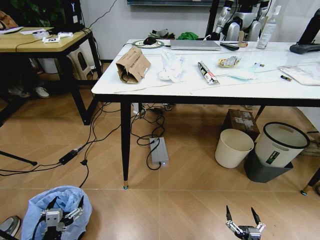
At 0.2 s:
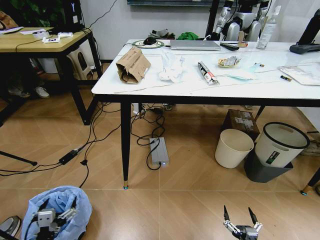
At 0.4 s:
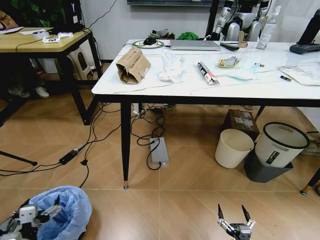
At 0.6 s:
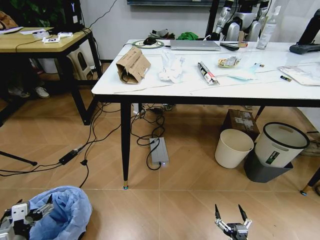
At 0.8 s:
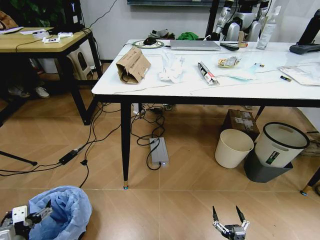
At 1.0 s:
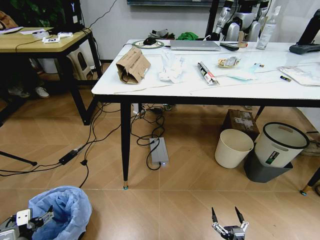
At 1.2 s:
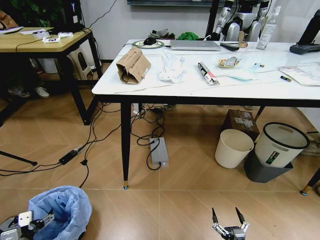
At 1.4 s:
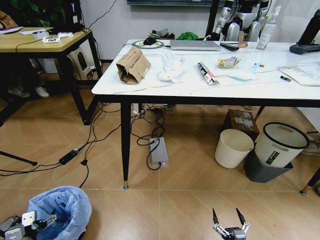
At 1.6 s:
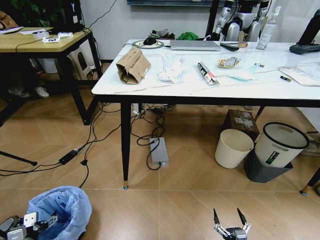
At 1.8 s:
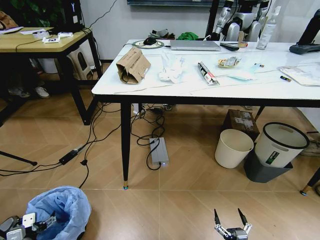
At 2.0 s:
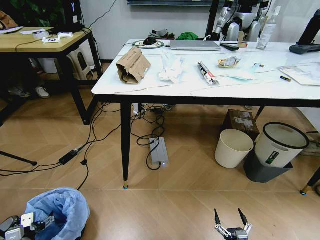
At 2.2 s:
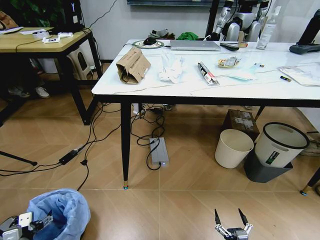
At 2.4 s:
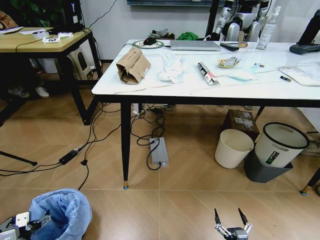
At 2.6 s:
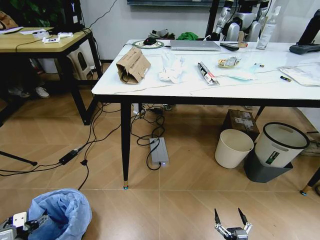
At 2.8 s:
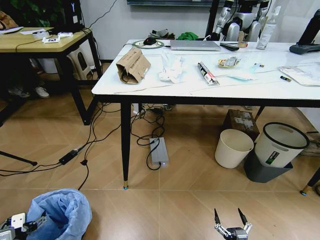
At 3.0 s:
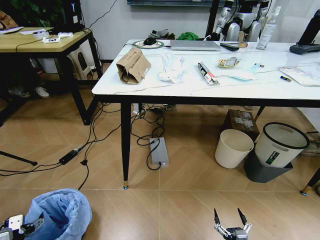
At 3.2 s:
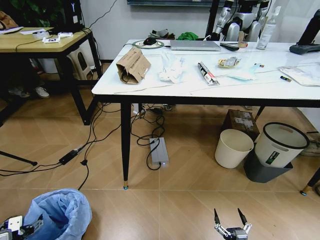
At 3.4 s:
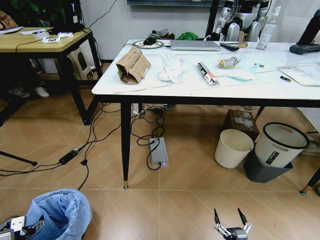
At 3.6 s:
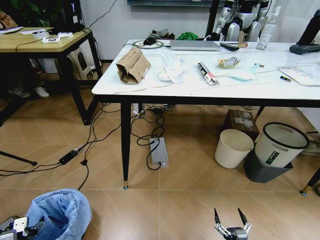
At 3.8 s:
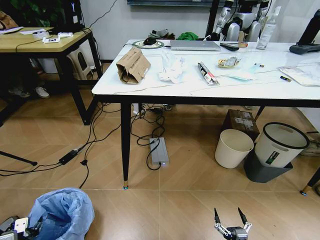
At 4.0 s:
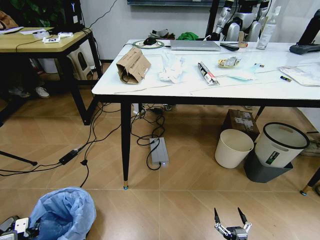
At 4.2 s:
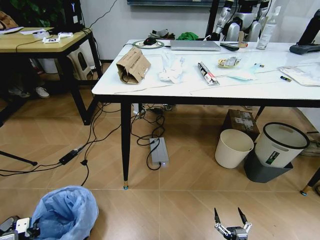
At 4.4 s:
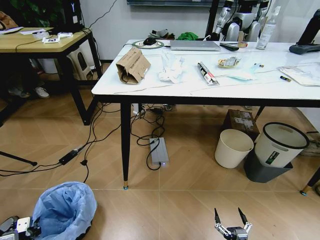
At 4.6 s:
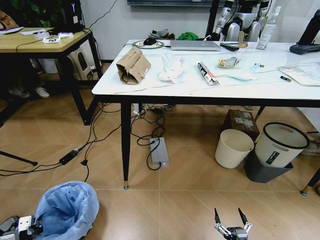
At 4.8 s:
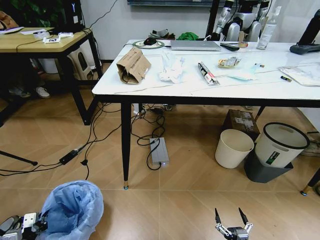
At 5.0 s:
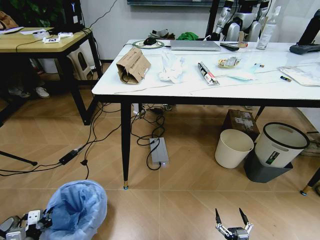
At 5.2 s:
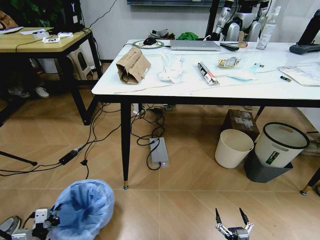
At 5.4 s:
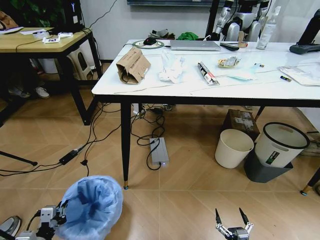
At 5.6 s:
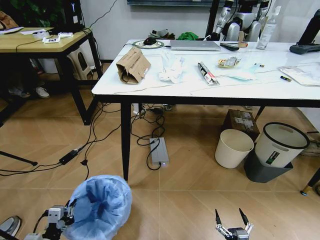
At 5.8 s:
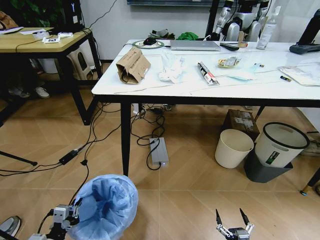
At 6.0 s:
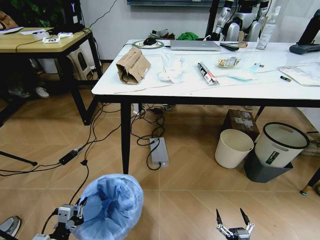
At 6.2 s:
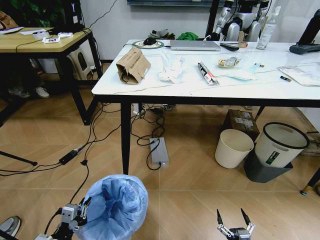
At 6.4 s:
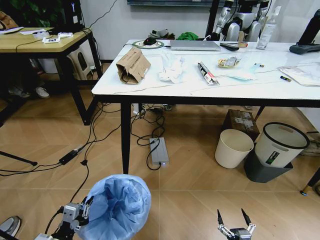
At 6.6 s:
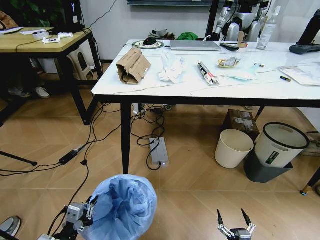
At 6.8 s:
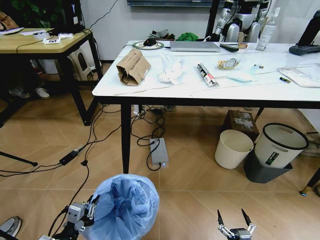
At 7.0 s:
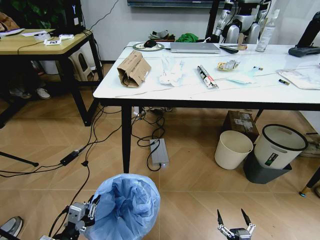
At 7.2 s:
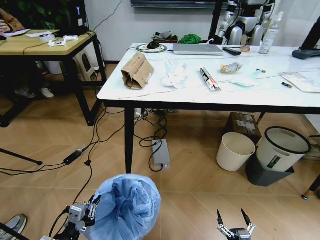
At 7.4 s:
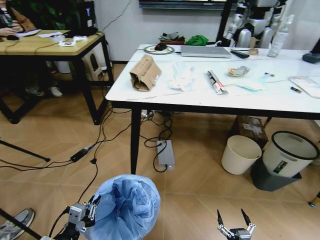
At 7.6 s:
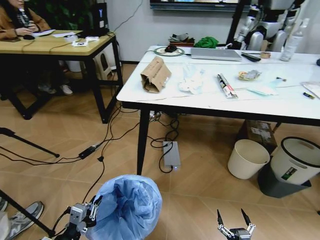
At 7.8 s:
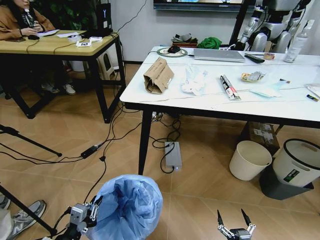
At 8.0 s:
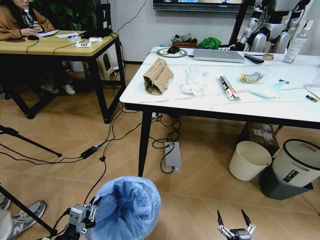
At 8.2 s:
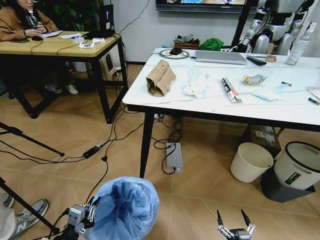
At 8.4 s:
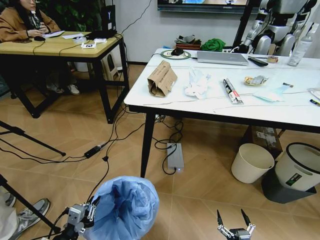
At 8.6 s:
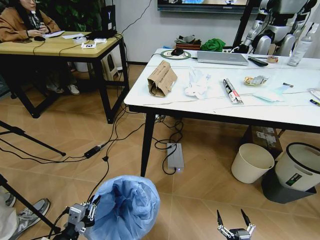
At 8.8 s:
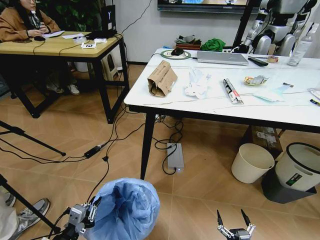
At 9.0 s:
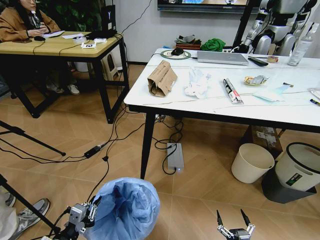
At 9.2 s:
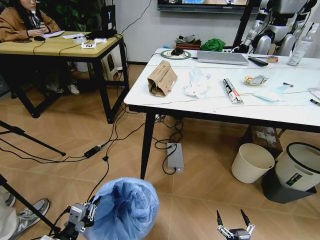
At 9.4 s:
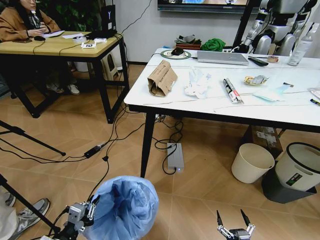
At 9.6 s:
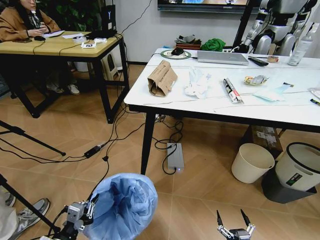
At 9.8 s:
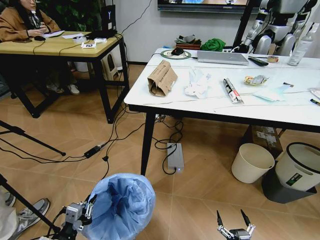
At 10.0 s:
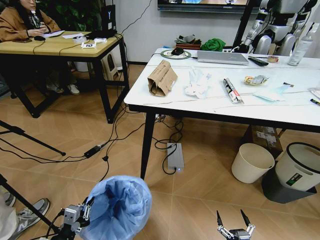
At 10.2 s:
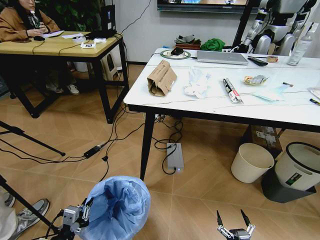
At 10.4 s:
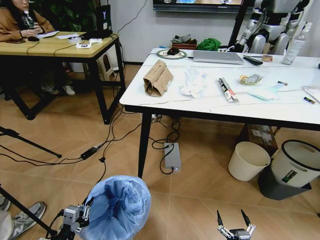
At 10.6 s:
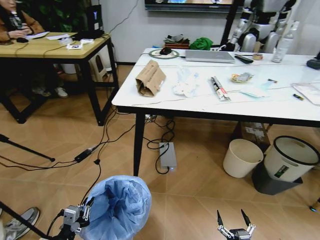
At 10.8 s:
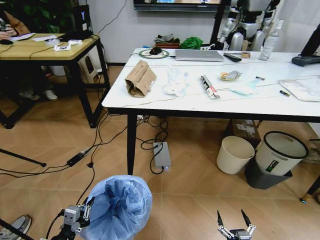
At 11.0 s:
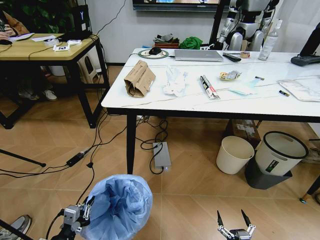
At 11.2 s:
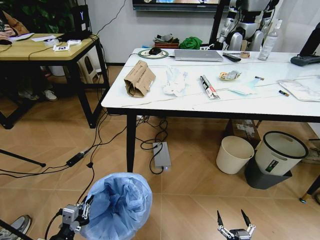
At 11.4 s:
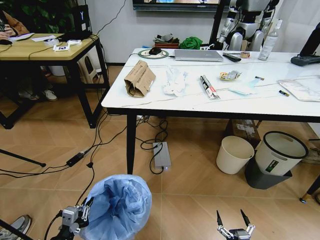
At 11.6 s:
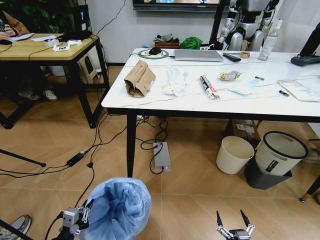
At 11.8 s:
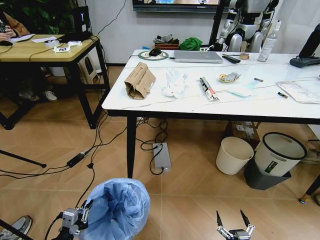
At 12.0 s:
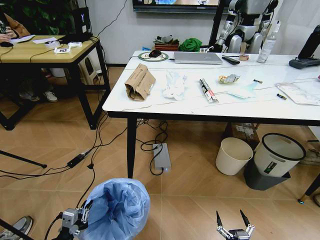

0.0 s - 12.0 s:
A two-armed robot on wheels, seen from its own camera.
Task of the whole recording: Pick up the trash bin and place the trash from the table into it.
0.0 s - 1.6 s: The left gripper heads to the left and downward, covering about 10 cm.
1.6 s - 3.0 s: The grippers make only small movements.
3.0 s - 4.4 s: The left gripper closes up.
4.4 s - 6.0 s: The left gripper goes some 15 cm to the right and upward.

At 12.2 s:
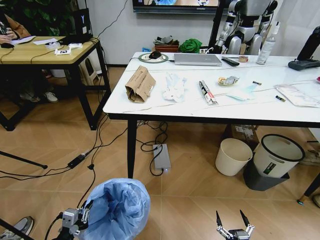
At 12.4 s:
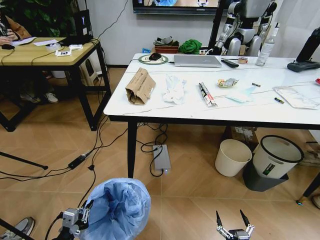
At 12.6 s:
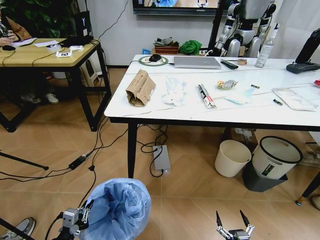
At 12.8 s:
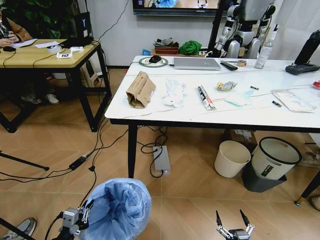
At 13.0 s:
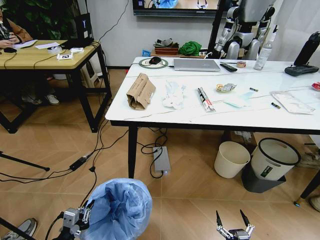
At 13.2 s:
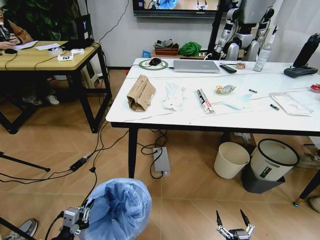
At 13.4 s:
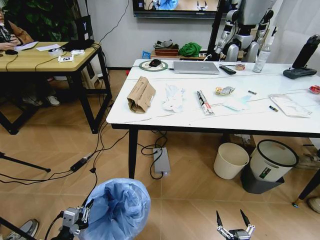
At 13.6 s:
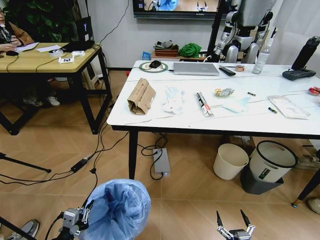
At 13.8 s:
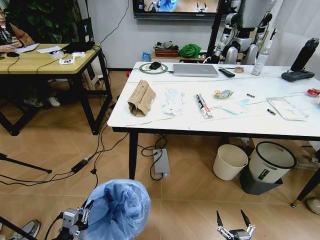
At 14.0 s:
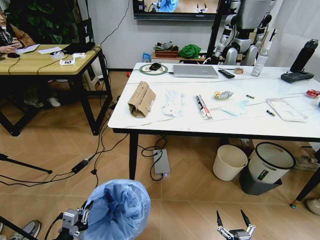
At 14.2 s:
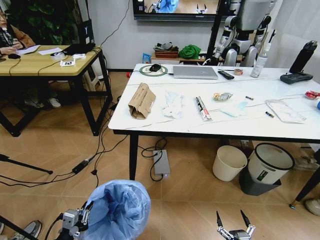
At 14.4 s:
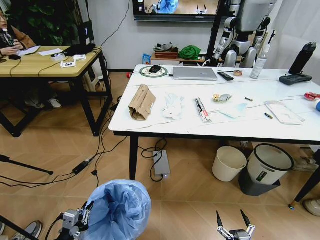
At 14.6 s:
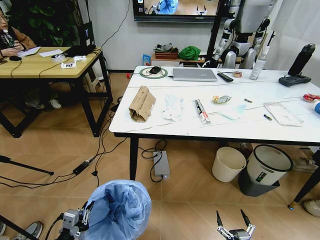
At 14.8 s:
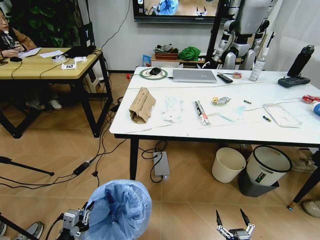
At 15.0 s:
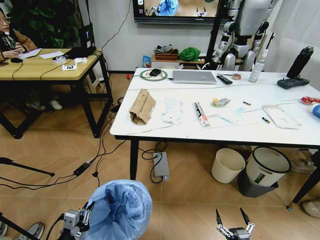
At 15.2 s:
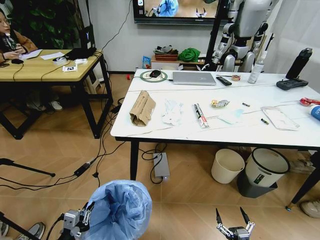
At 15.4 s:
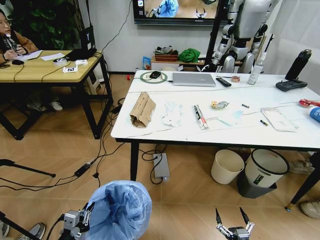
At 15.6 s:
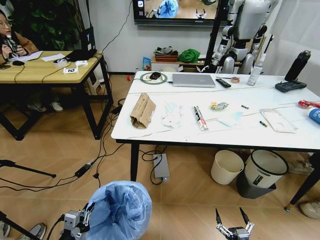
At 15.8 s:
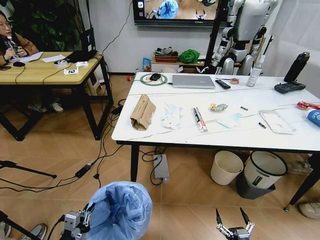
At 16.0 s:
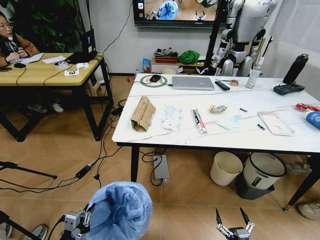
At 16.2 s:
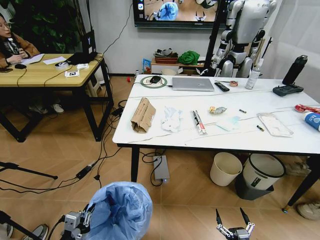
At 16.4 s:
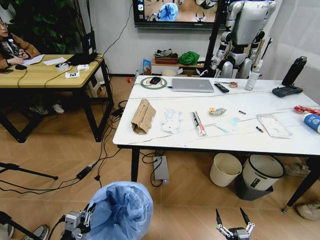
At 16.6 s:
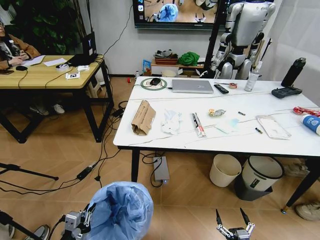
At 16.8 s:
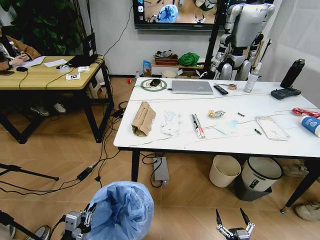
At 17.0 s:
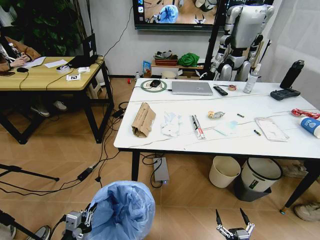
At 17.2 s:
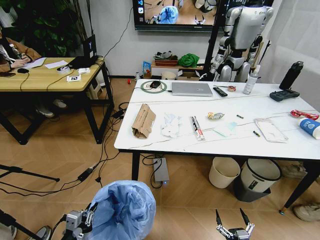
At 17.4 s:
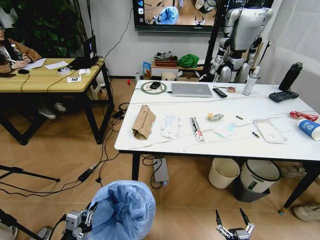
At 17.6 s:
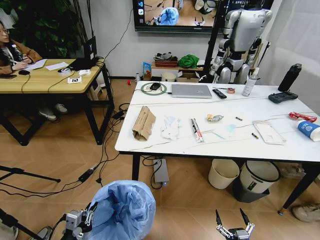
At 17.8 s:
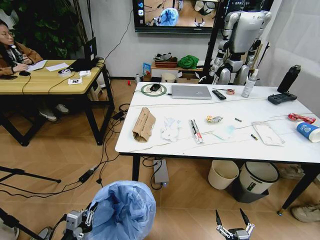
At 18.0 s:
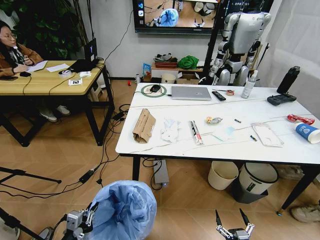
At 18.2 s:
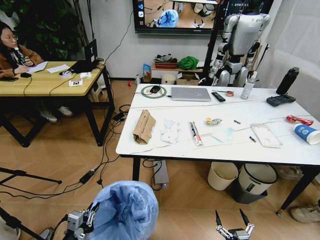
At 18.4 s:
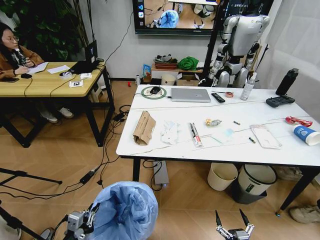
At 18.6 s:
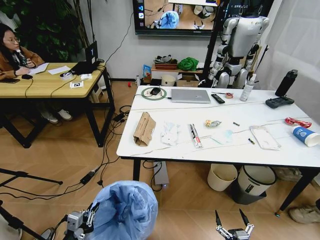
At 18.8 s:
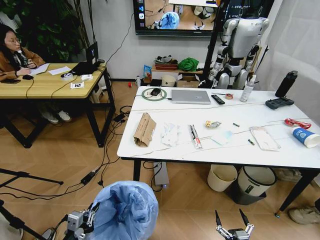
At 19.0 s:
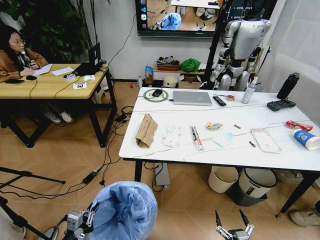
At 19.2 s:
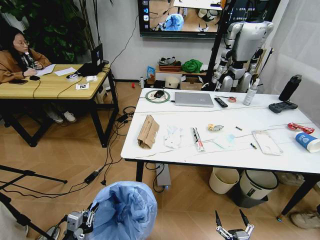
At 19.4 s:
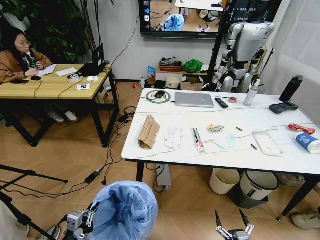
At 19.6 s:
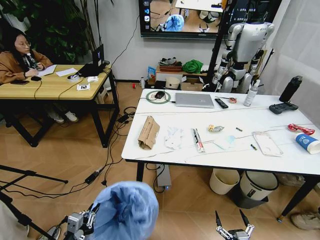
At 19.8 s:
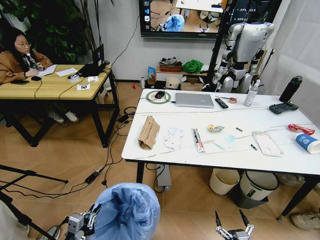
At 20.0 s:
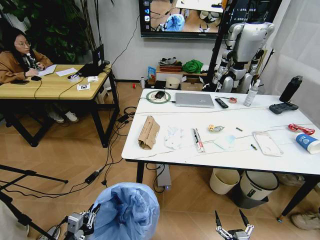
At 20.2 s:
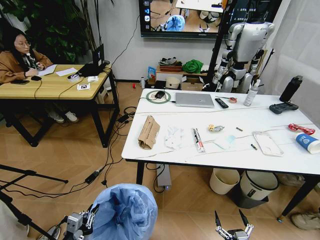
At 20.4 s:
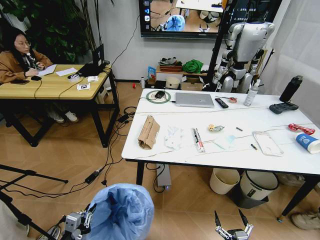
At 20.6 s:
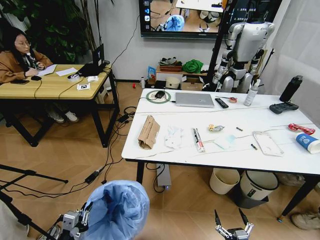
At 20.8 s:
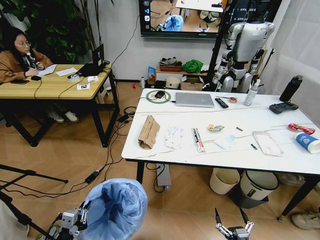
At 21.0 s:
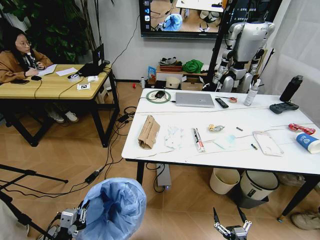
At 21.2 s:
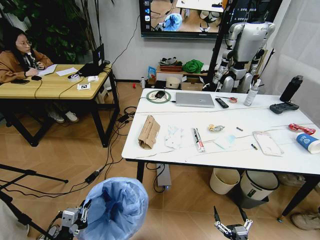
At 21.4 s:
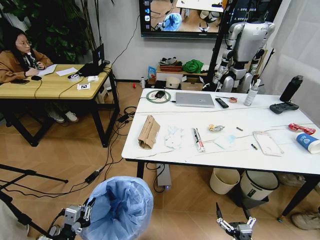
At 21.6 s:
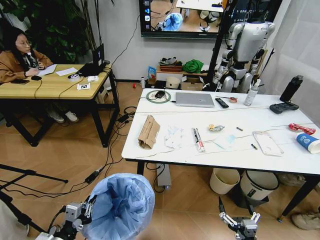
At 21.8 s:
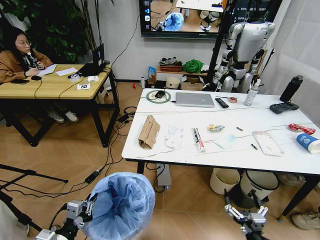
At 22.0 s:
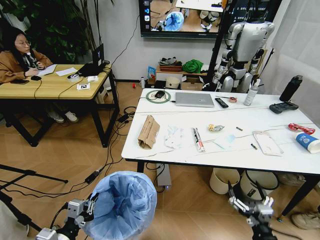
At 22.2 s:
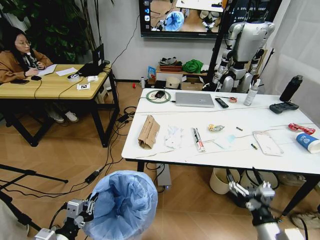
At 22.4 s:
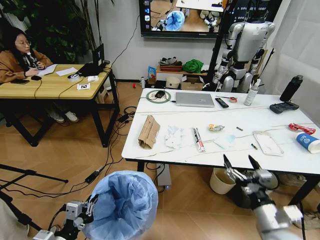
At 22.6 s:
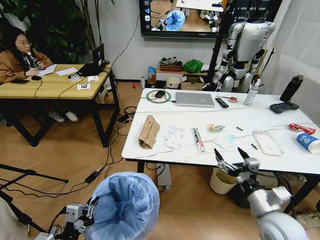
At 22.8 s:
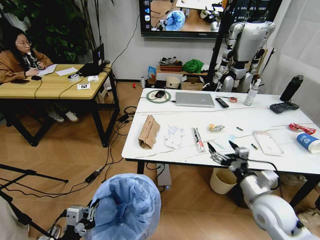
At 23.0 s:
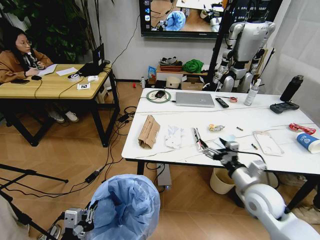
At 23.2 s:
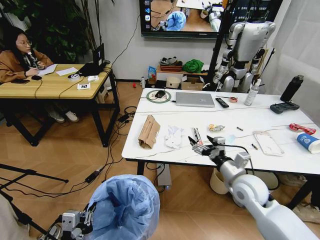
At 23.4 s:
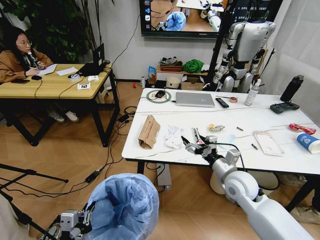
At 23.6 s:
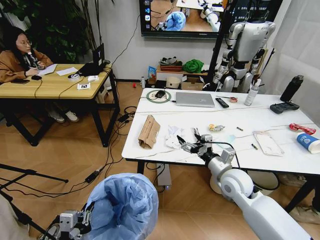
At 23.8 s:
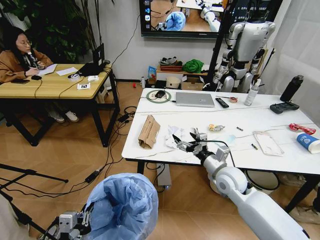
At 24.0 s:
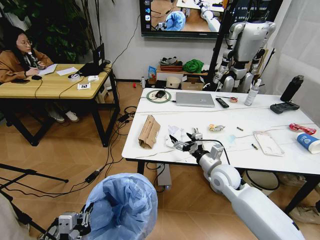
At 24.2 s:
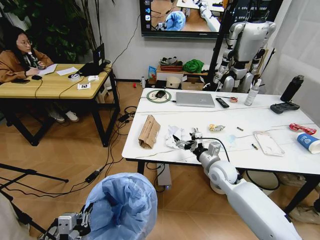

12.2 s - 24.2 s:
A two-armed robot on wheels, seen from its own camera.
Task of the whole recording: Pick up the trash bin and place the trash from the table into it.
19.8 s - 21.2 s: The grippers stay close to where they were, moving slightly.
21.2 s - 22.6 s: The right gripper moves upward and forward, approximately 25 cm, while the left gripper shifts by roughly 5 cm.
22.6 s - 24.2 s: The right gripper travels forward and to the left by approximately 20 cm.
